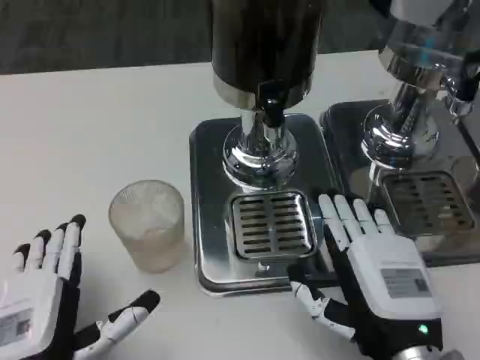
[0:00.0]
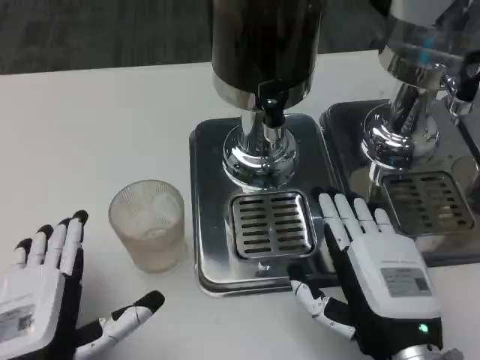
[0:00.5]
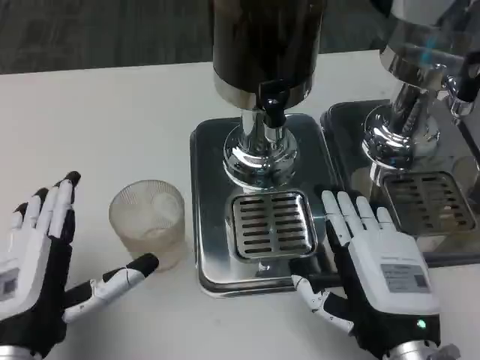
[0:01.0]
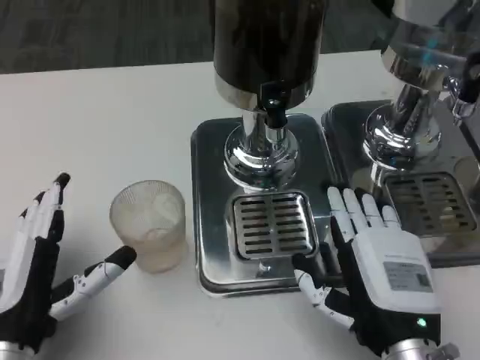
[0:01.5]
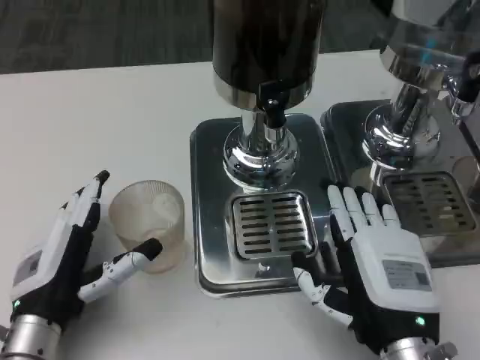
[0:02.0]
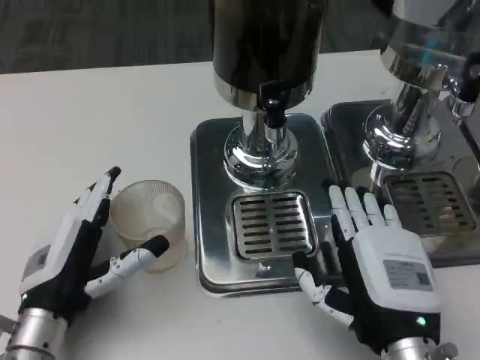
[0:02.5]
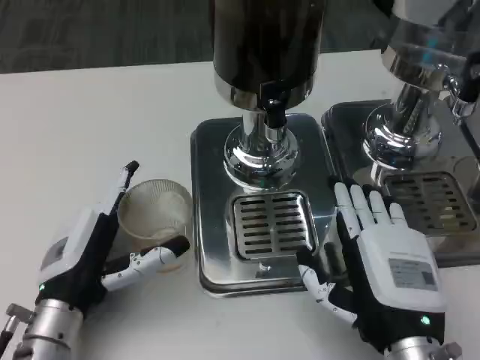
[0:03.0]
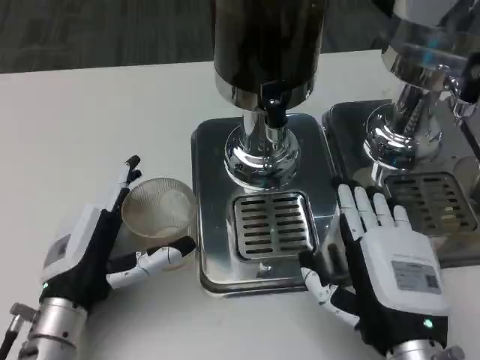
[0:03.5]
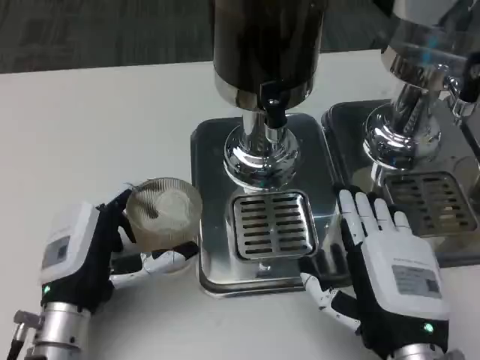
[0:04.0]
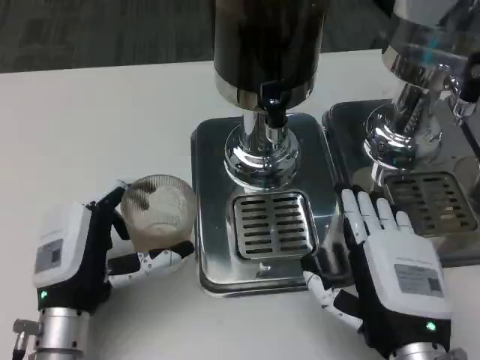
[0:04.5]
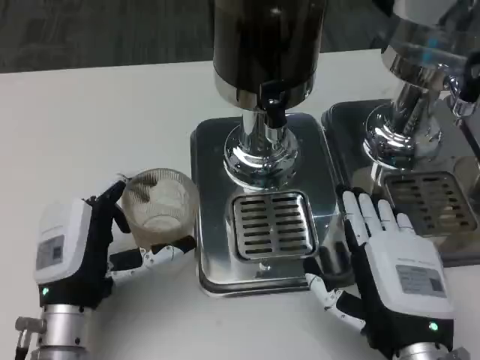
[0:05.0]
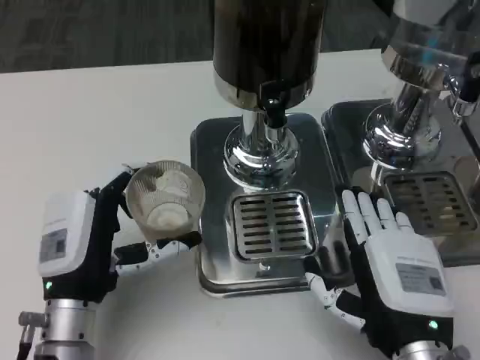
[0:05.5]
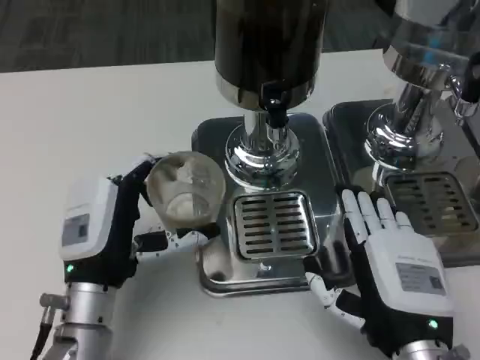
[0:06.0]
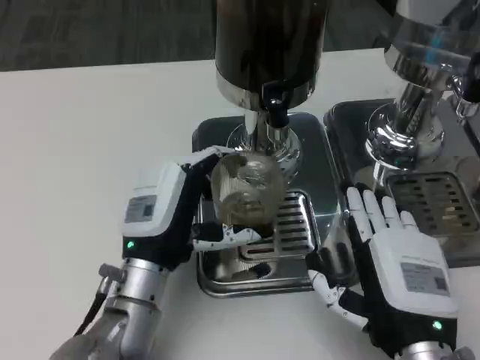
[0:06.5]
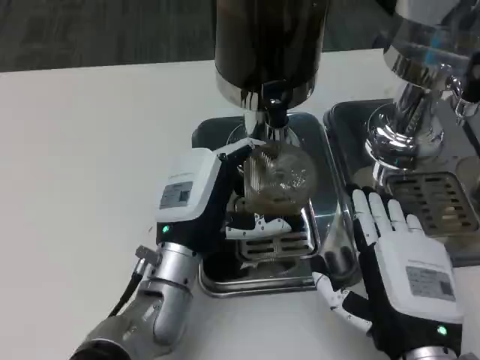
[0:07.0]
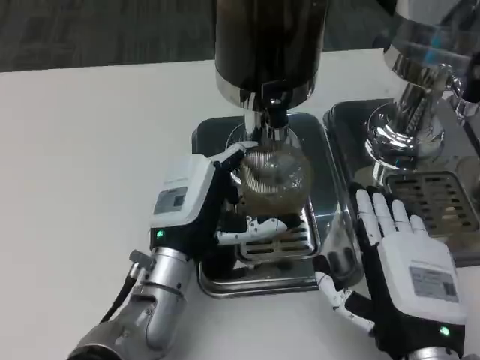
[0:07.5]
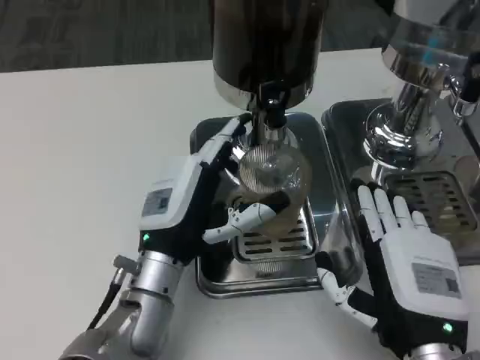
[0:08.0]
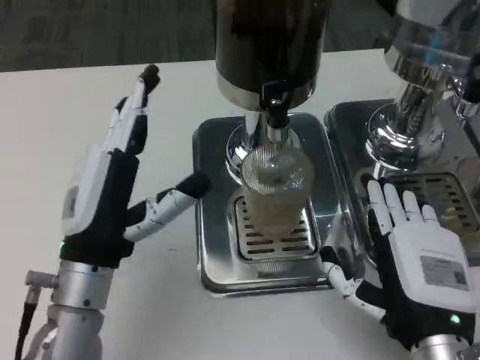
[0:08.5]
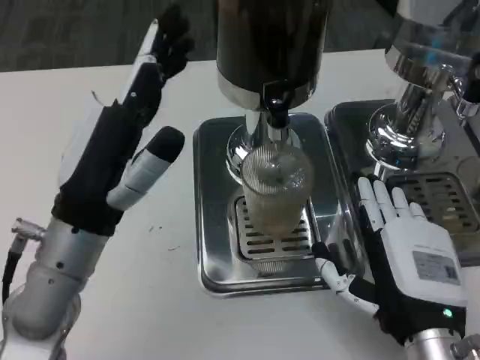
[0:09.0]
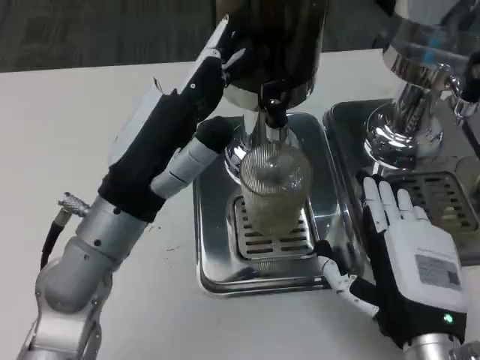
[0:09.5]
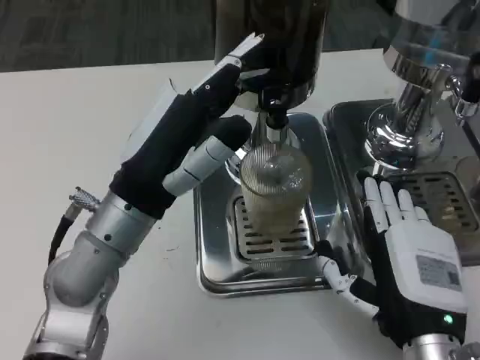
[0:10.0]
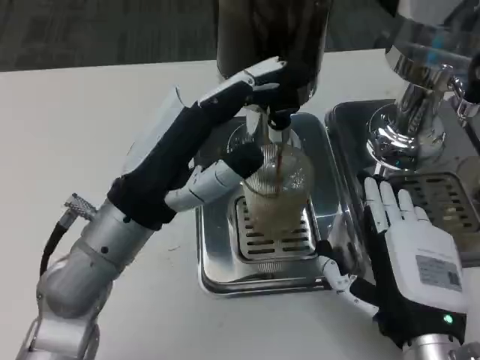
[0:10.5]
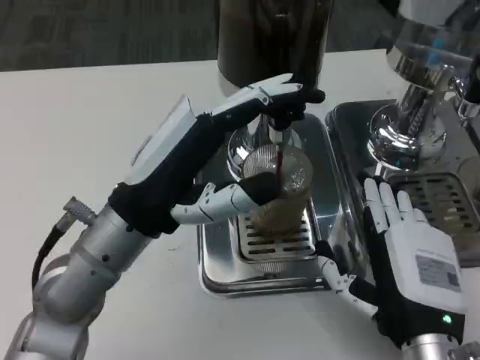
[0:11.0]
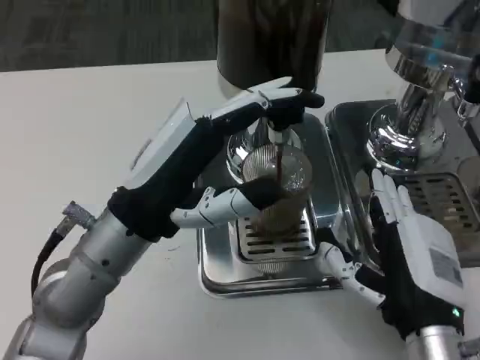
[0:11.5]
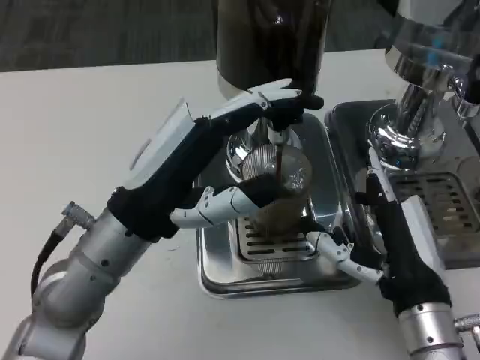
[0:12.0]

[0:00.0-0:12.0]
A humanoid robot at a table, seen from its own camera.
Task of the whole recording: Grasp the cup under the faucet to collect the drink, then remove the cup.
0:00.0 to 0:02.0: The left hand moves forward, some 10 cm.
0:02.0 to 0:04.0: The hands stay close to where they were, moving slightly.
0:04.0 to 0:06.0: The hands move only a little.
0:06.0 to 0:08.0: The left hand is displaced to the right by about 5 cm.
0:08.0 to 0:10.0: The left hand moves upward, some 10 cm.

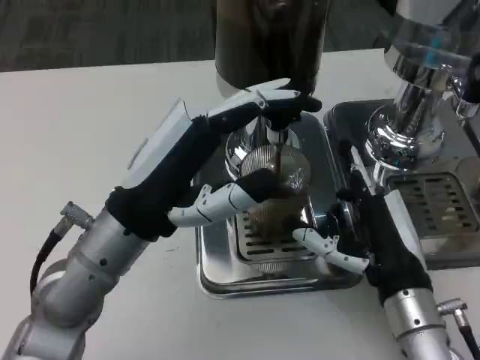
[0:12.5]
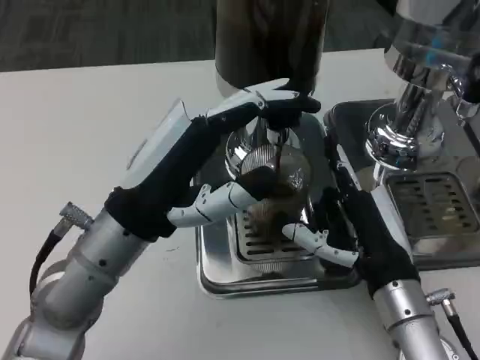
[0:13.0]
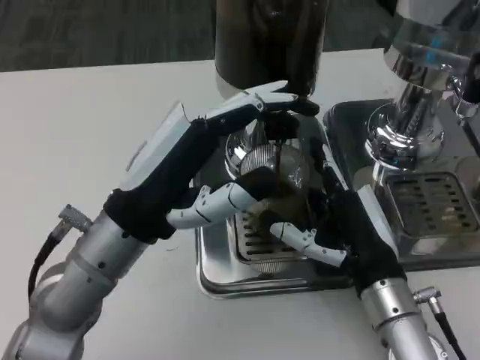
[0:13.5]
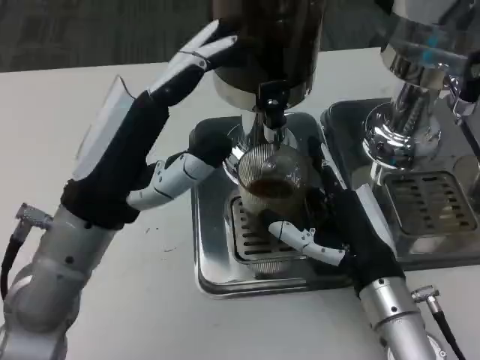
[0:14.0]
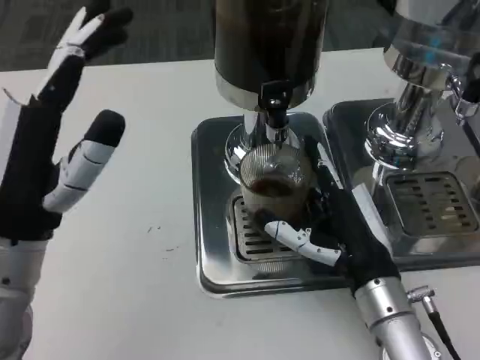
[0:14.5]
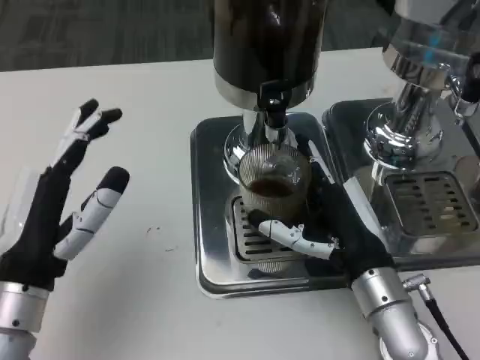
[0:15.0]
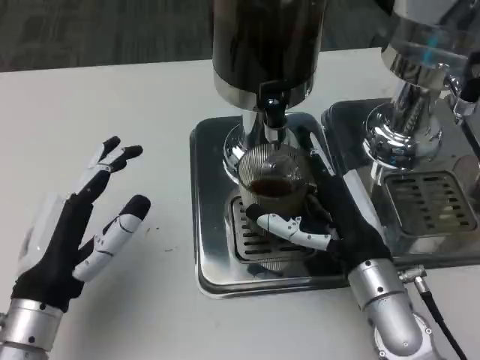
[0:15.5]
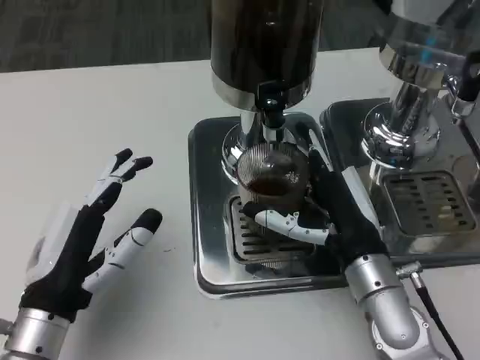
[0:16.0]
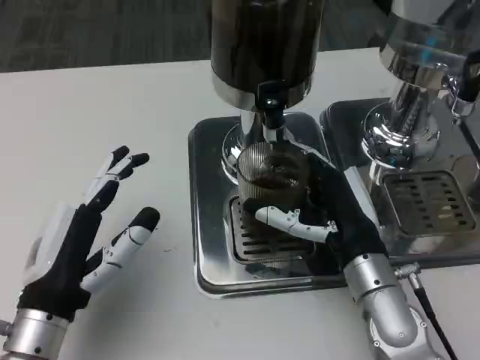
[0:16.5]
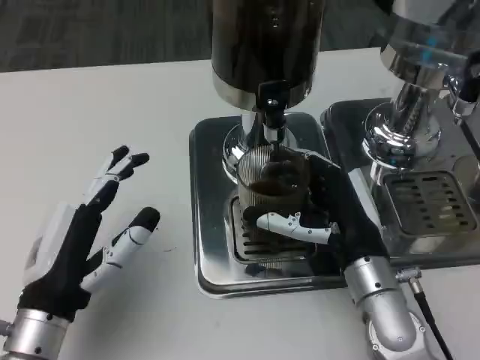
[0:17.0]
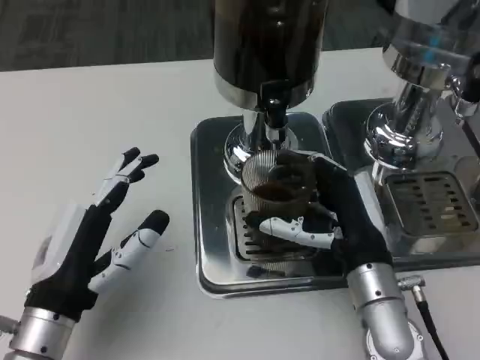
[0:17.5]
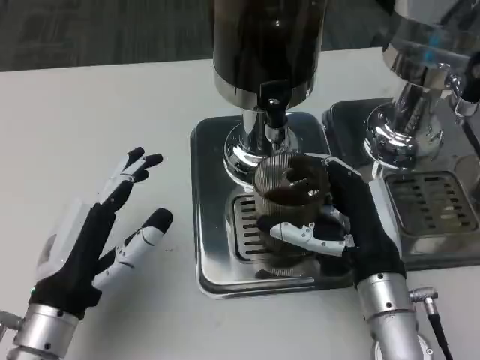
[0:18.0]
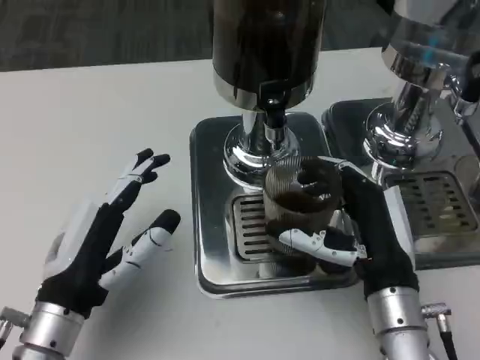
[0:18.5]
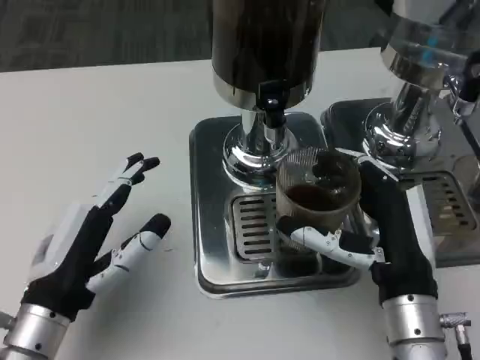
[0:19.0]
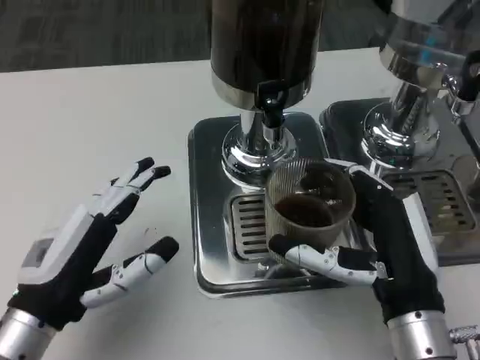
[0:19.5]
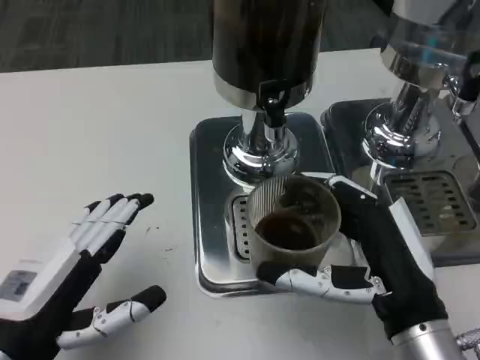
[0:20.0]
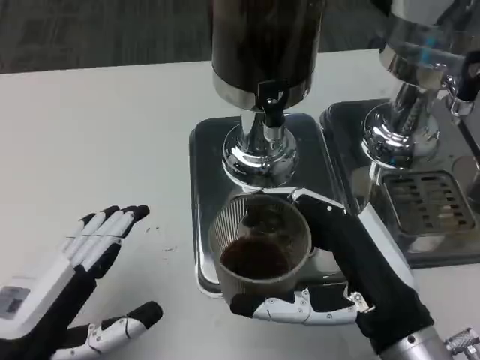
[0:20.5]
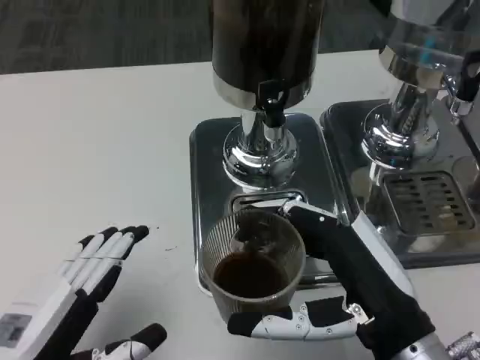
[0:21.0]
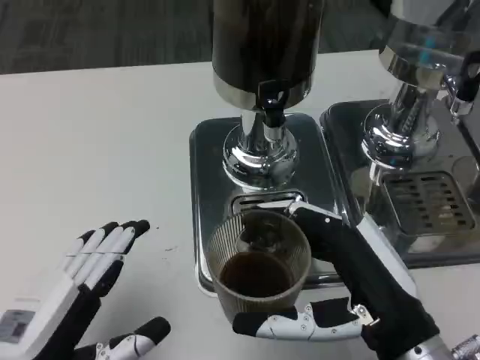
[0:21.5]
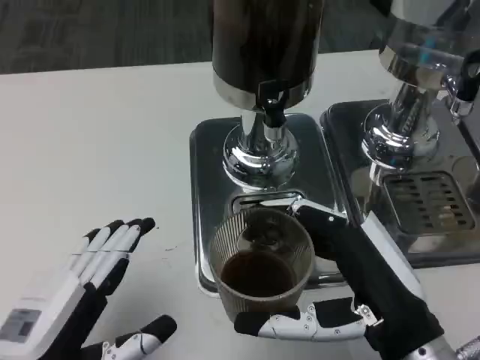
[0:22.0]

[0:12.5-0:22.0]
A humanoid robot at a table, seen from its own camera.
Task of the whole recording: Grasp the cup under the faucet to collect the drink, then remove the cup.
0:12.5 to 0:14.5: The left hand moves to the left, some 5 cm.
0:14.5 to 0:16.5: The left hand shifts approximately 10 cm downward.
0:18.0 to 0:20.0: The left hand ends up approximately 5 cm from where it was. The right hand is displaced backward by some 5 cm.

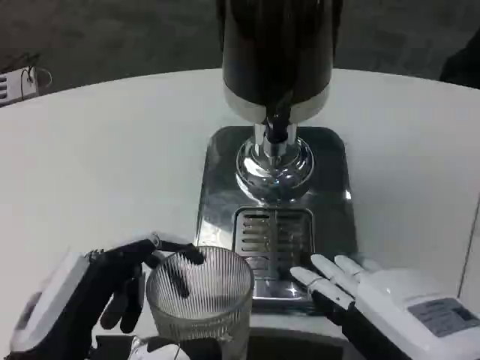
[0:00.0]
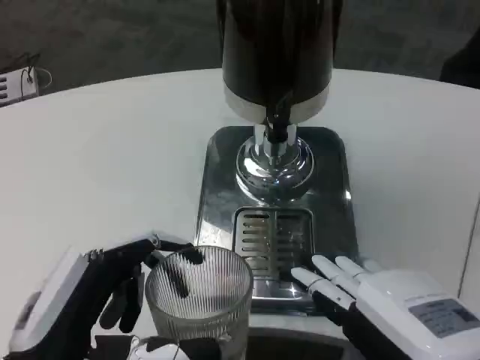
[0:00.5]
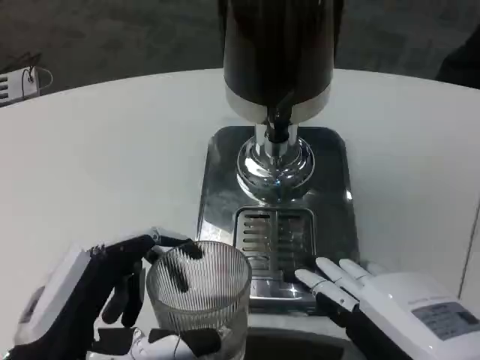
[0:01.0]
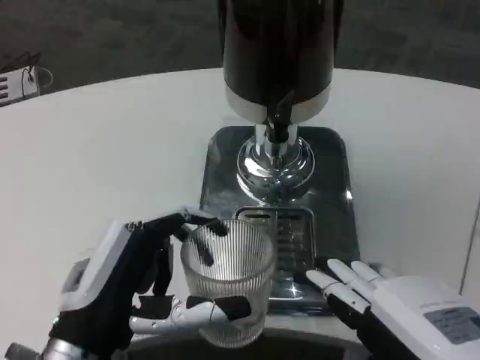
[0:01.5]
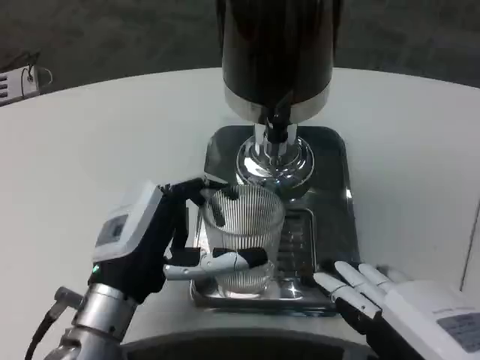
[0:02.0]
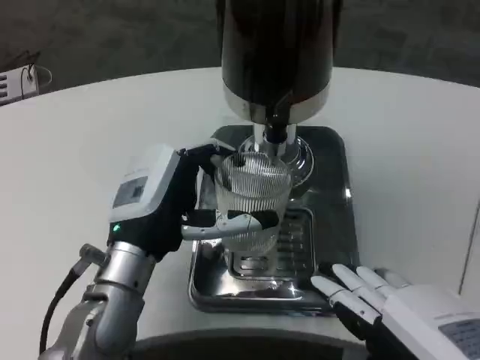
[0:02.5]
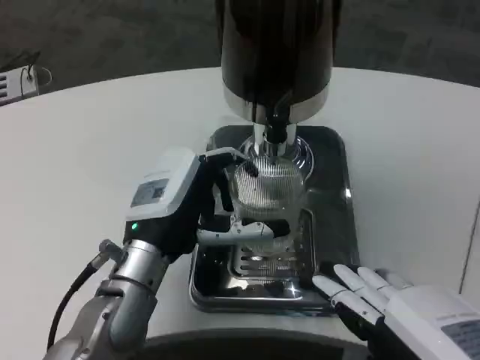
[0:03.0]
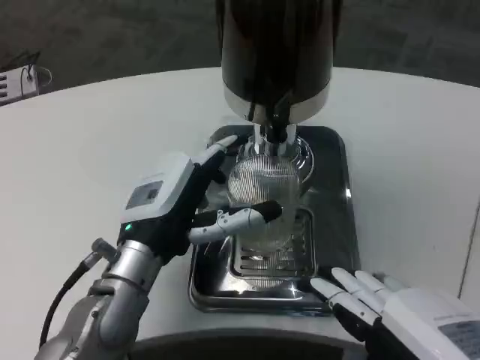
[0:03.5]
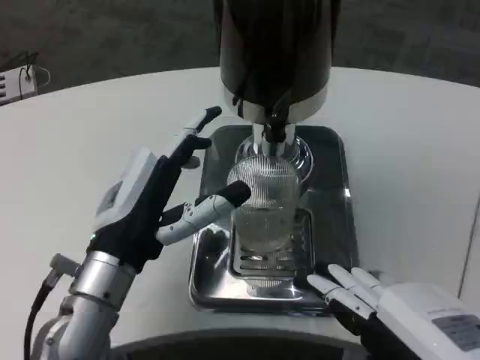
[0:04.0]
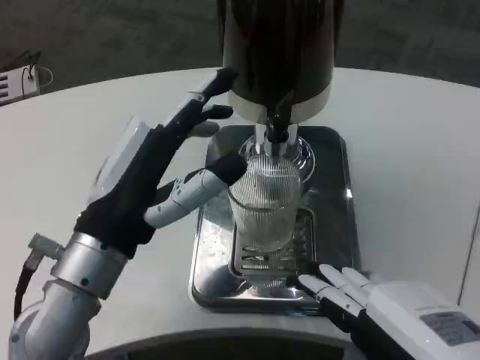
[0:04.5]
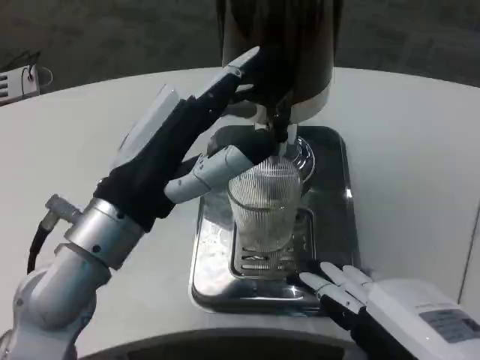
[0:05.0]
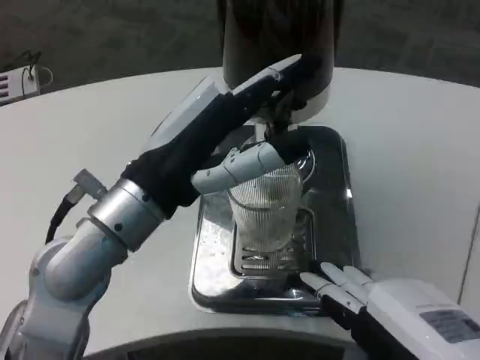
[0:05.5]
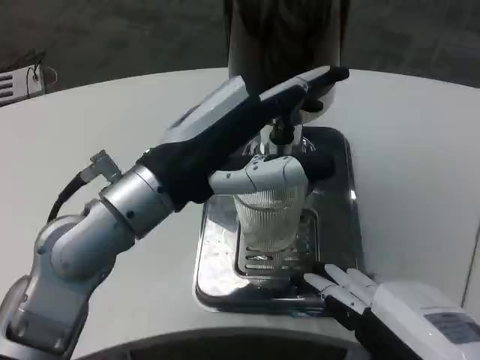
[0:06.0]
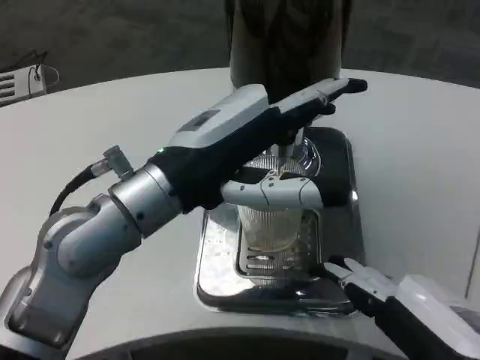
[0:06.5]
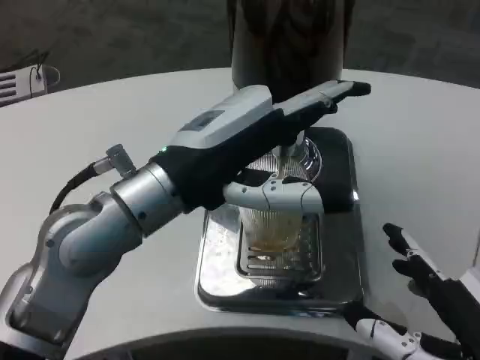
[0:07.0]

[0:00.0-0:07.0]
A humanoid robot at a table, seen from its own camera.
Task of the whole recording: Grasp the cup under the faucet to collect the drink, then remove the cup.
0:00.0 to 0:02.0: The left hand is displaced forward by roughly 10 cm.
0:02.0 to 0:03.5: The hands make only small movements.
0:03.5 to 0:05.0: The left hand shifts roughly 10 cm upward.
